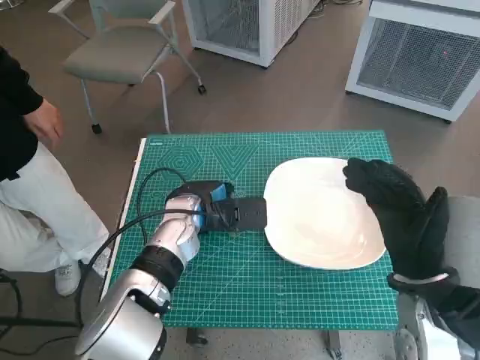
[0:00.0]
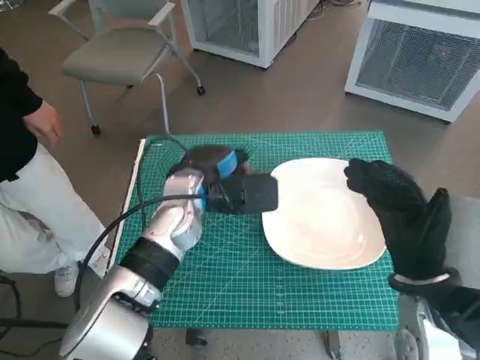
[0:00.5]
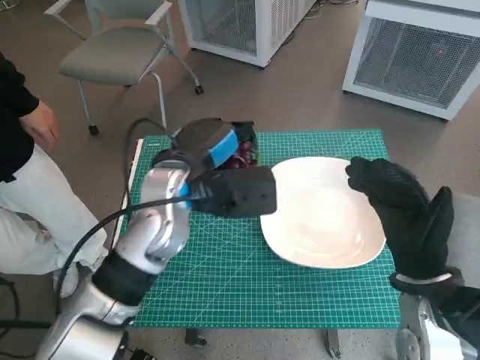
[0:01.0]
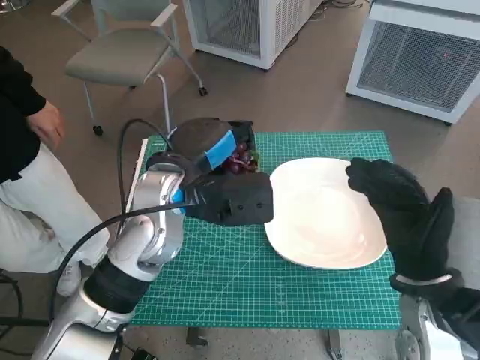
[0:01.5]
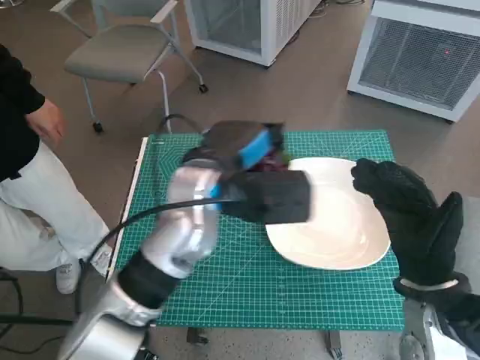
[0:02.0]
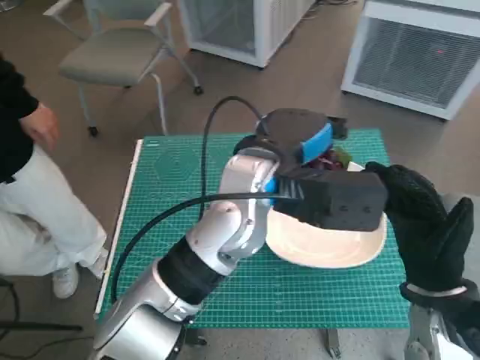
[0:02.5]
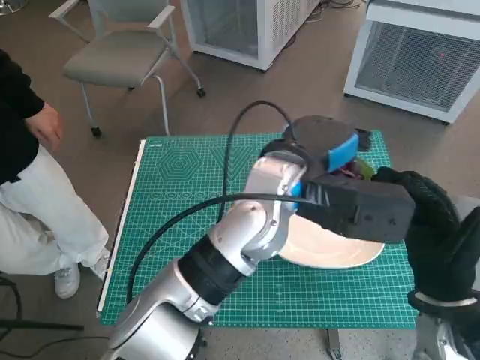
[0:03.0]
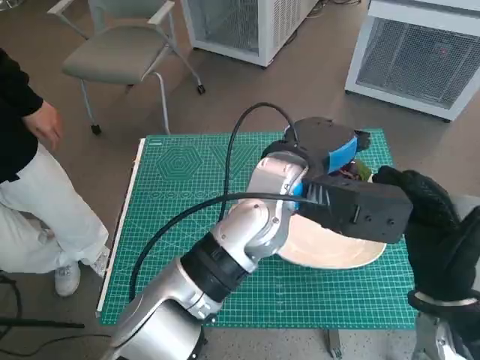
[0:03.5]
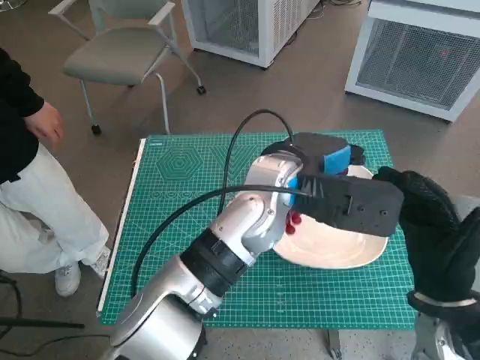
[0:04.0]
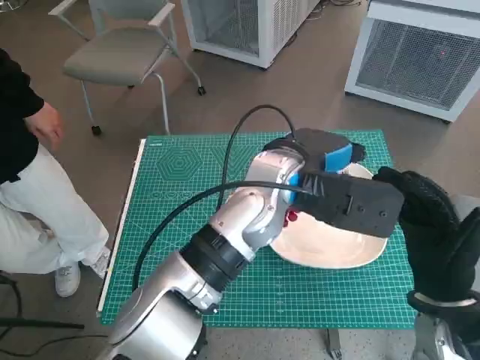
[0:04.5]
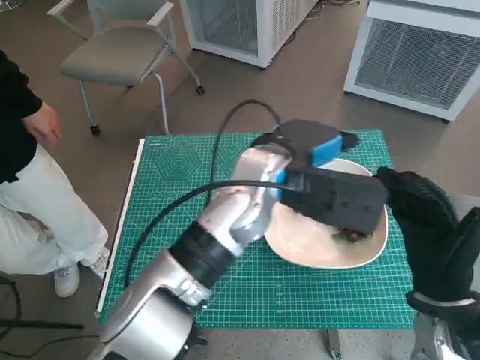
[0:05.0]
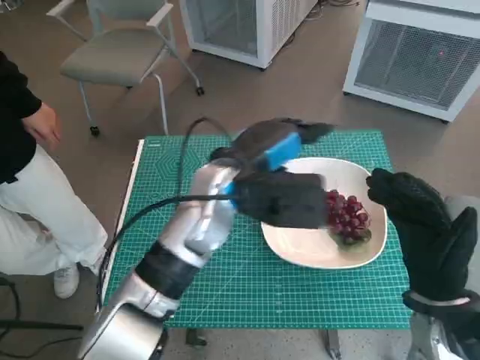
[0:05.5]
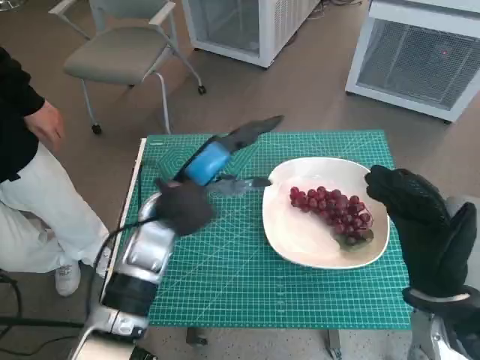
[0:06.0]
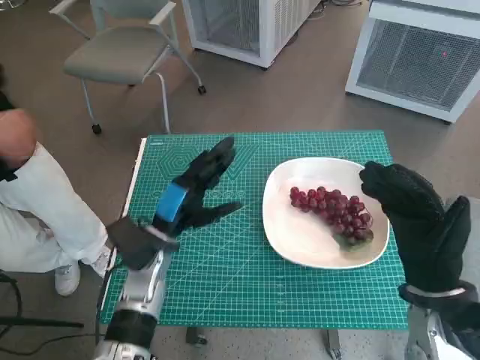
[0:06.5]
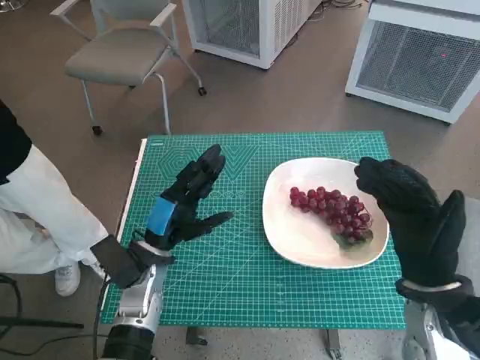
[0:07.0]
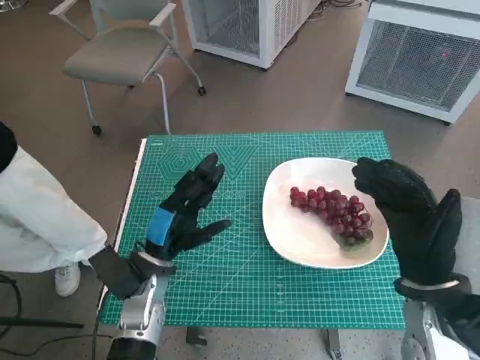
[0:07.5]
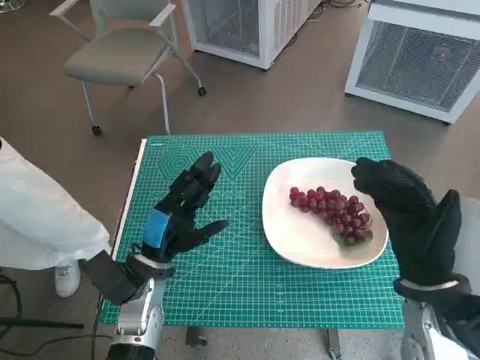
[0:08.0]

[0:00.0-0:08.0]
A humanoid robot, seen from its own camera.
Task of the whole recording: Pick up the grapes and put them on the plate.
Step, 0.0 to 4.5 s: Place the grapes in the plate with left hand.
0.0 to 2.0 s: The left hand shifts roughly 10 cm upward.
2.0 to 4.0 s: The left hand heads to the right, covering about 10 cm.
4.0 to 6.0 s: The left hand moves to the left and downward, about 15 cm.
6.0 to 8.0 s: The left hand heads downward, backward and to the left, covering approximately 15 cm.

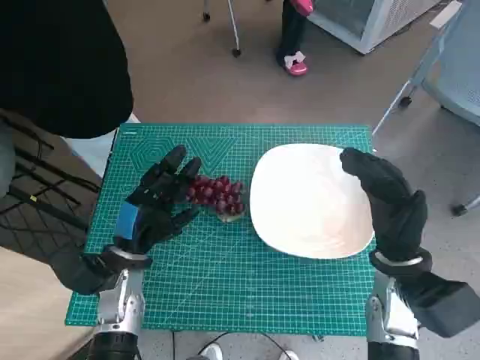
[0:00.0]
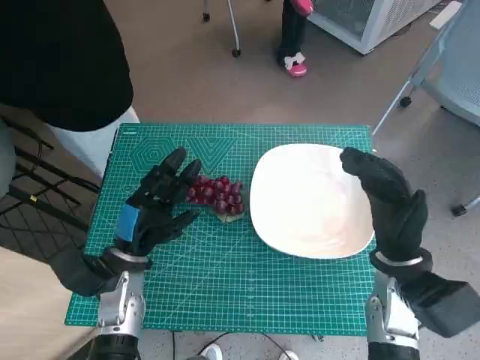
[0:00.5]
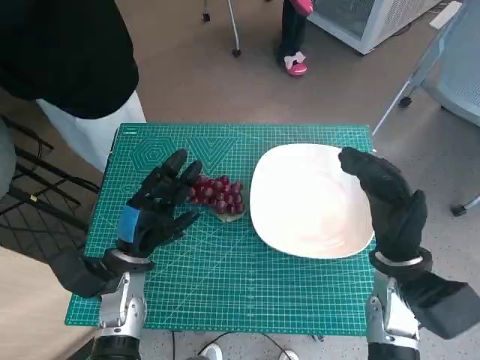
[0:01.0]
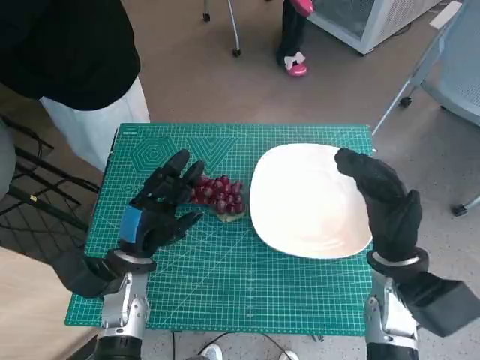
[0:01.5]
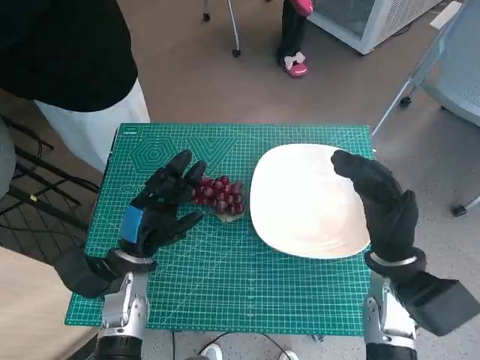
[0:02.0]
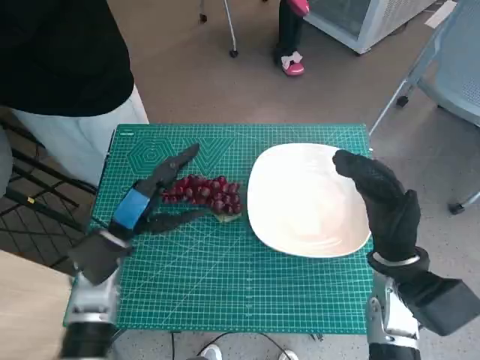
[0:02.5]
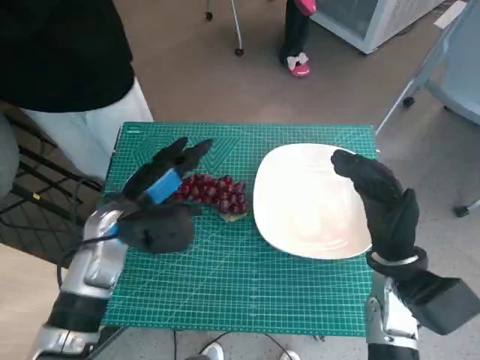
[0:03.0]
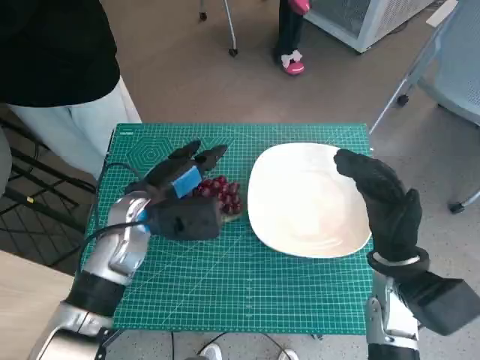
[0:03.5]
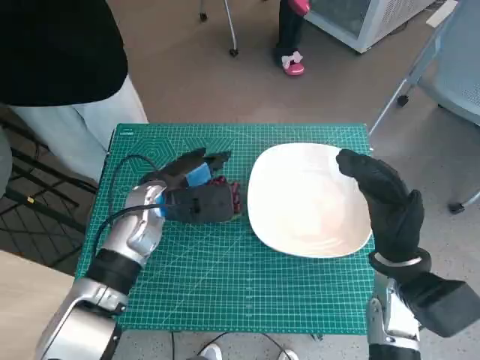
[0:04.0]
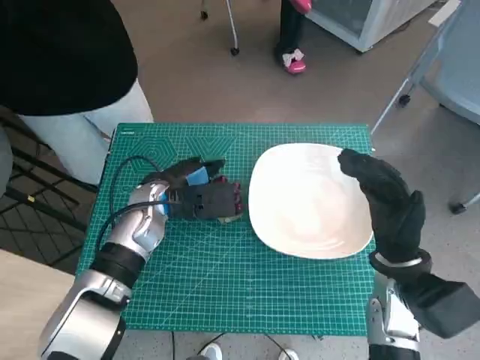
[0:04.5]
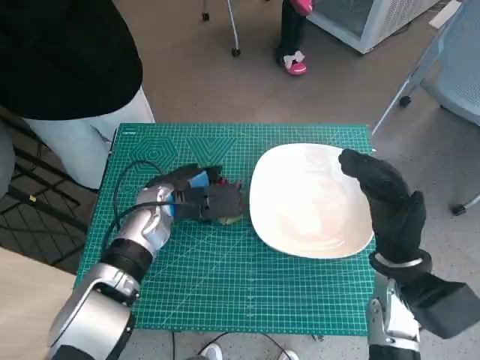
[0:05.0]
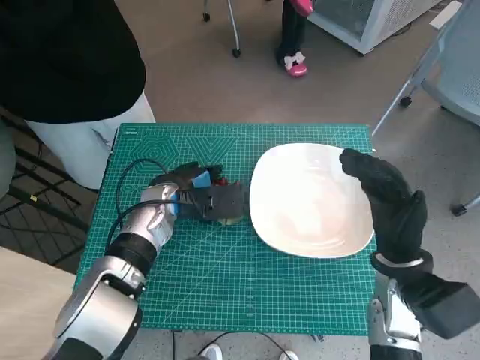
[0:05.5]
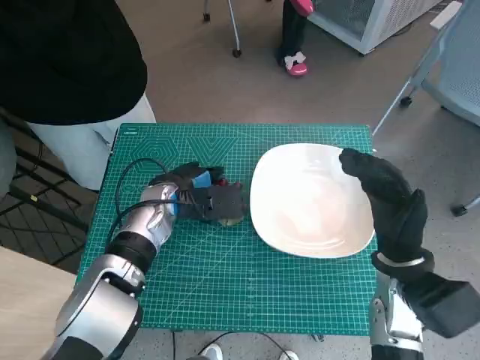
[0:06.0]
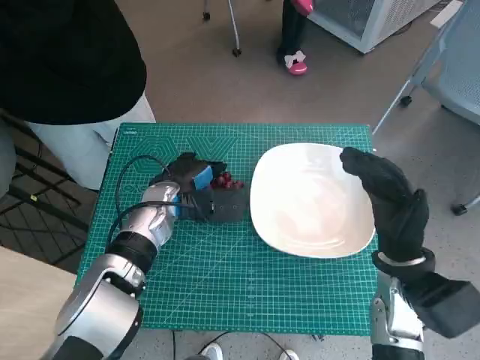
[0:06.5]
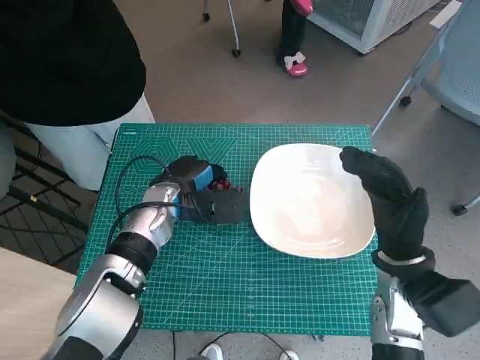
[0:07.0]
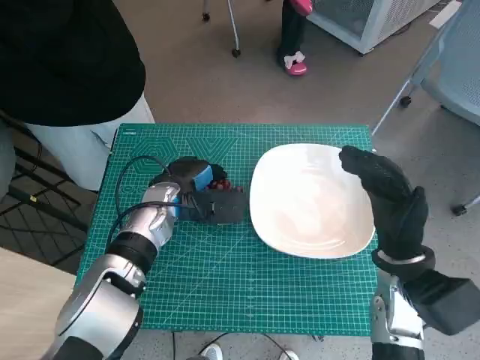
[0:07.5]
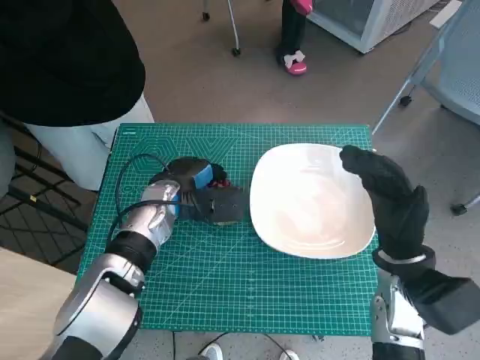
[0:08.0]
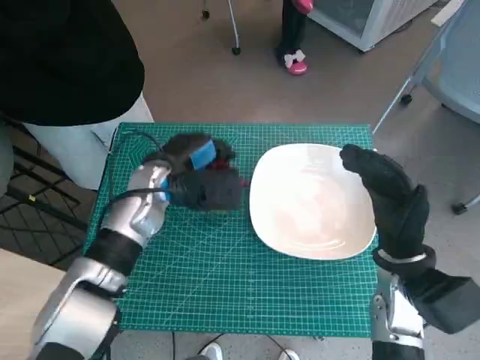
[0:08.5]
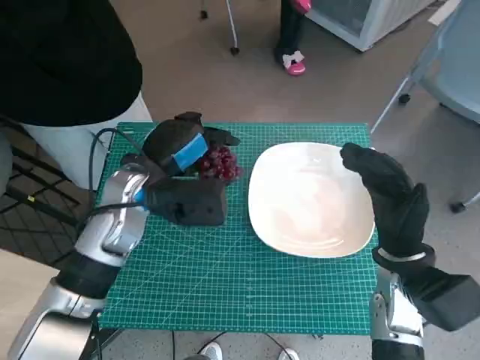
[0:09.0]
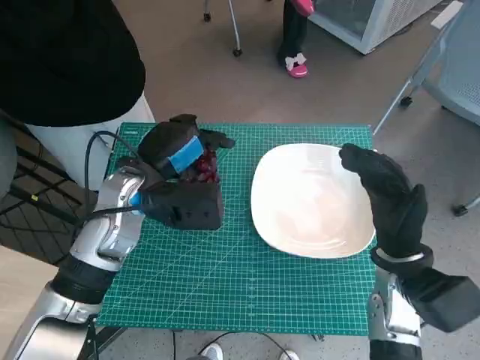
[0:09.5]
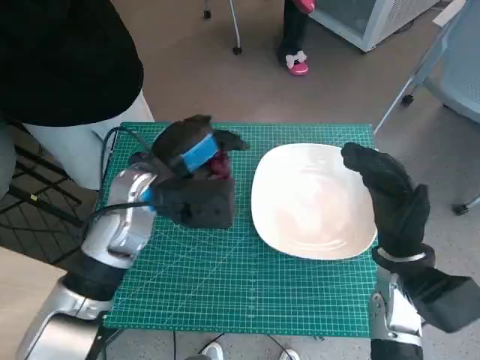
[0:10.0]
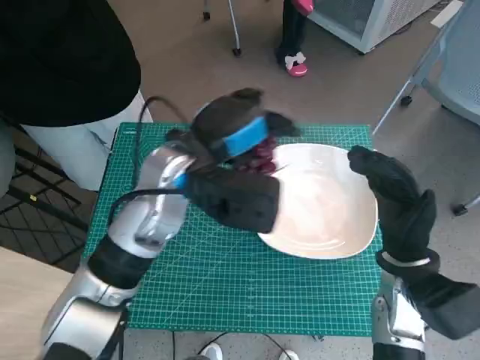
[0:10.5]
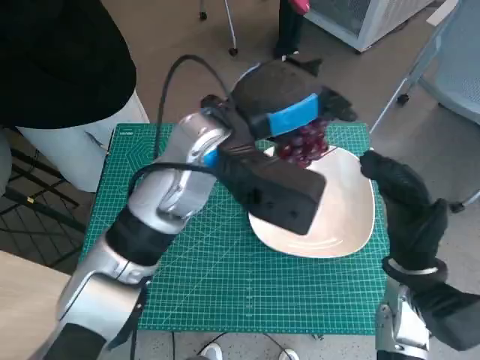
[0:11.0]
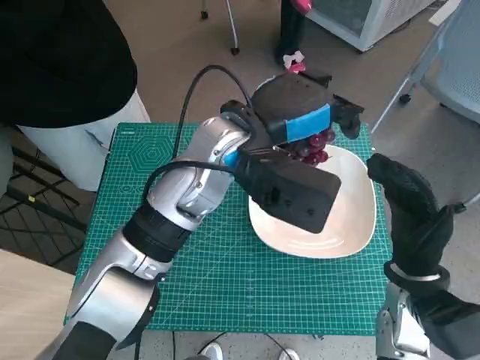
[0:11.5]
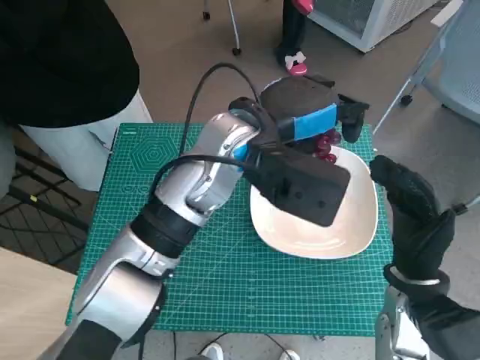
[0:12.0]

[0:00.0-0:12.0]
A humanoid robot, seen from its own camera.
Task of the whole recording: Pick up the grapes and put them on the plate.
Step, 0.0 to 6.0 s: Grasp the grapes with left hand.
2.0 to 4.0 s: The left hand heads forward and upward, covering about 10 cm.
4.0 to 8.0 s: The hands move only a little.
8.0 to 10.0 s: The left hand heads upward, covering some 10 cm.
10.0 to 12.0 s: The left hand heads to the right and upward, covering about 15 cm.

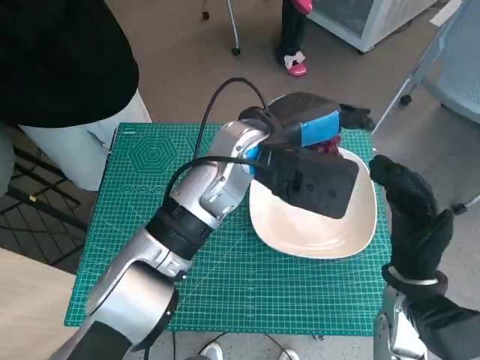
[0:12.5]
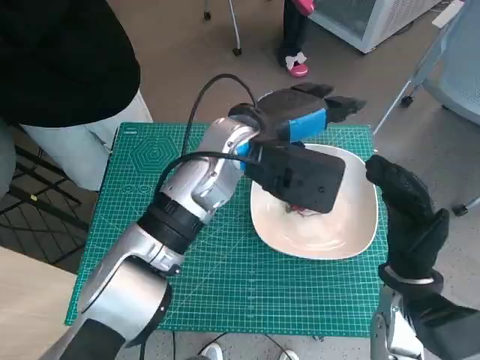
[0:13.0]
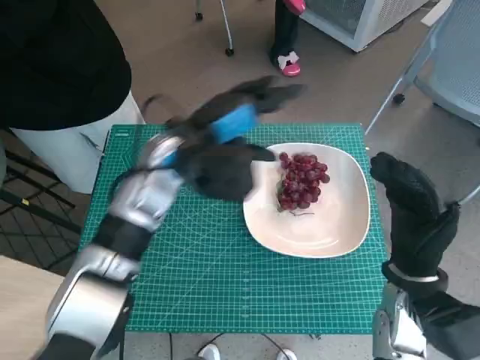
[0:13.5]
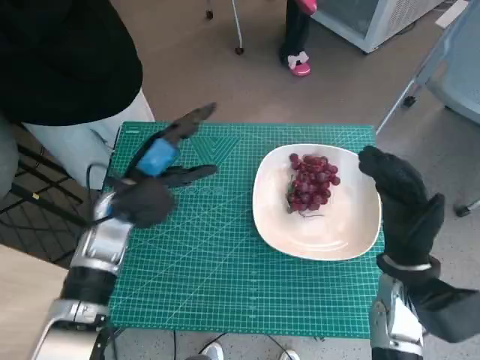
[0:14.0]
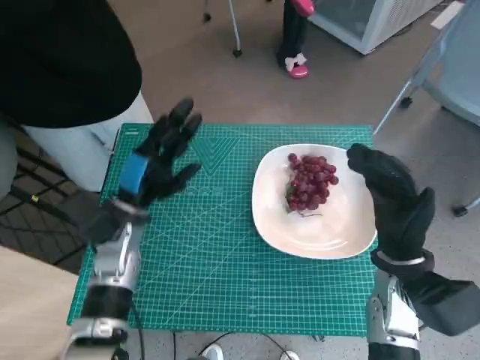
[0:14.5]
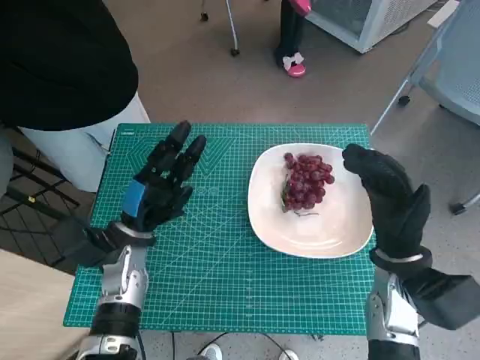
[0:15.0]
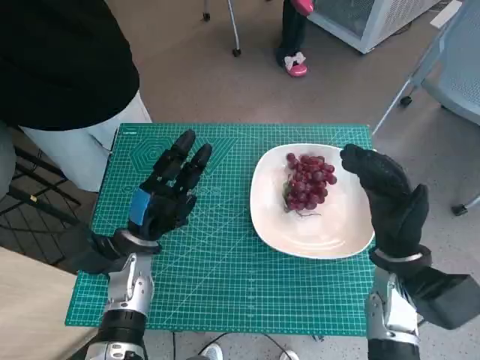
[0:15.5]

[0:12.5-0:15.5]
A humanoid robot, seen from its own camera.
Task of the whole recording: Pick up the grapes and put them on the plate.
12.5 to 14.0 s: The left hand travels to the left and downward by some 20 cm.
14.0 to 15.5 s: The left hand goes roughly 10 cm downward.

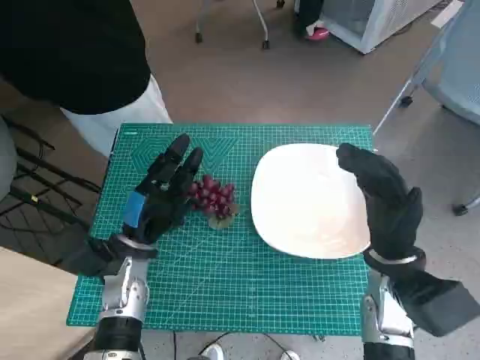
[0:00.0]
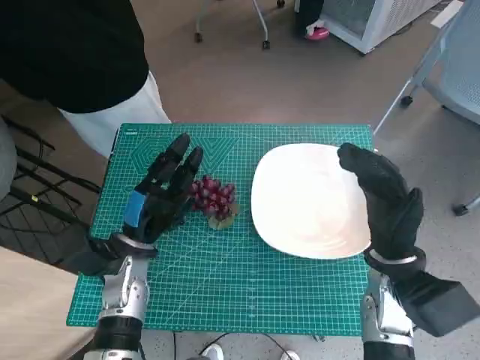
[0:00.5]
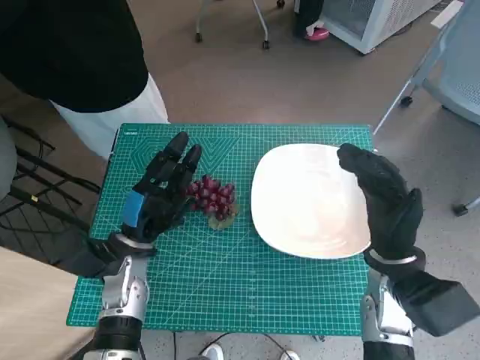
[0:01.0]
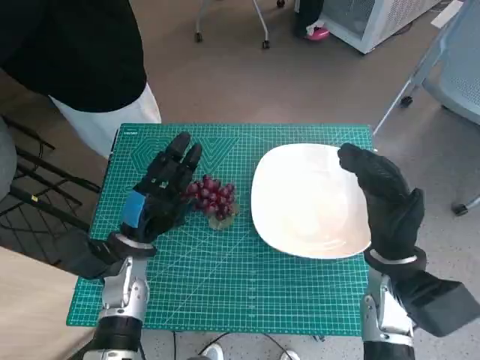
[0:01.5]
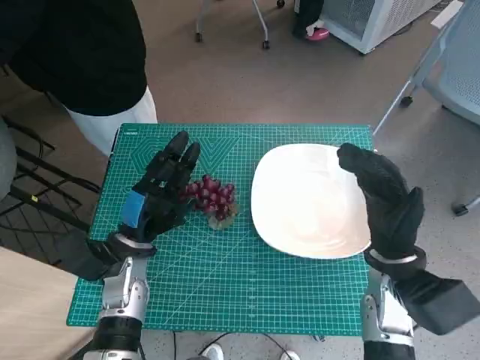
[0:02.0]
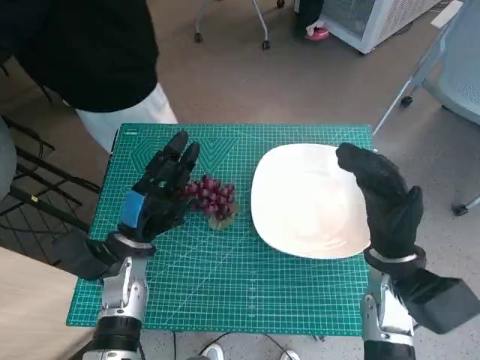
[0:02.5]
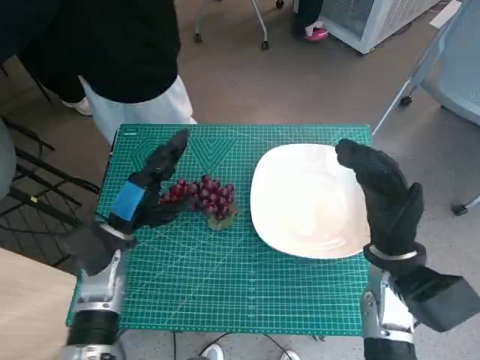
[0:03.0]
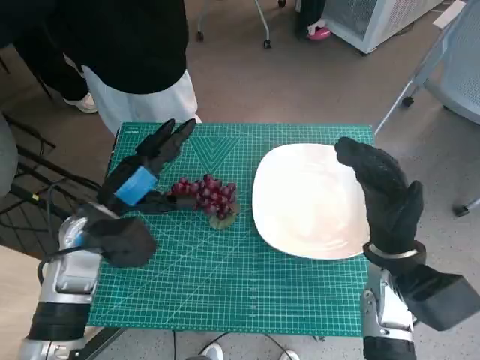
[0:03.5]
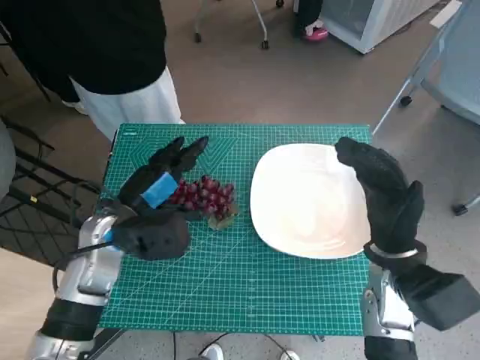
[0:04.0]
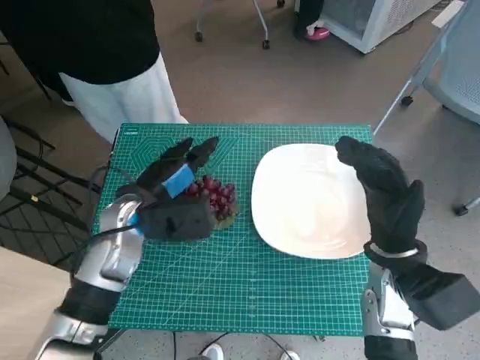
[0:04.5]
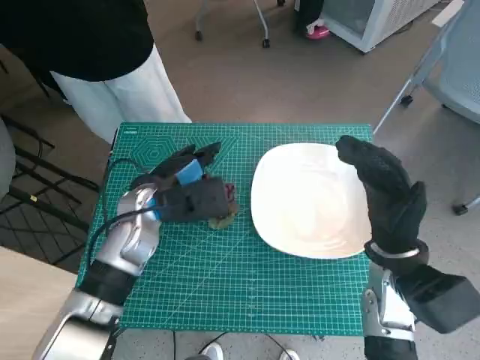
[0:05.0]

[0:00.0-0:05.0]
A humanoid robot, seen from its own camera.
Task of the whole recording: Pick up the grapes and put them on the plate.
2.5 to 5.0 s: The left hand heads upward and forward, covering some 10 cm.
